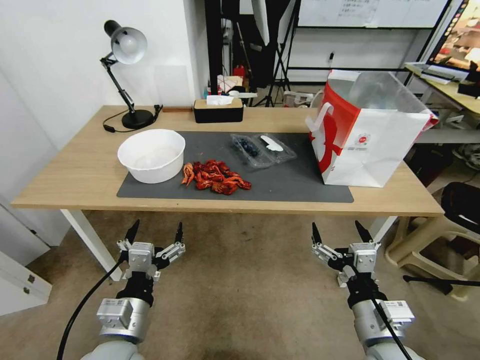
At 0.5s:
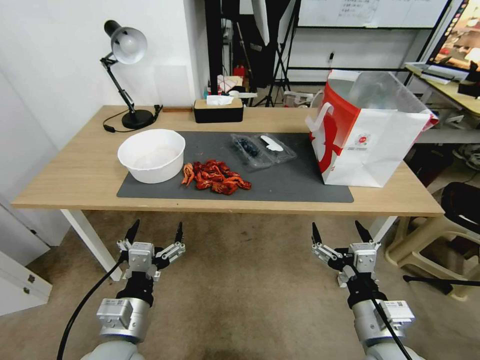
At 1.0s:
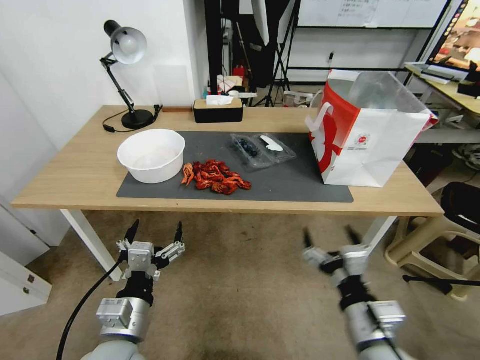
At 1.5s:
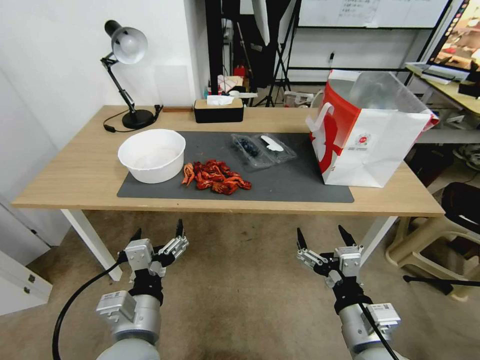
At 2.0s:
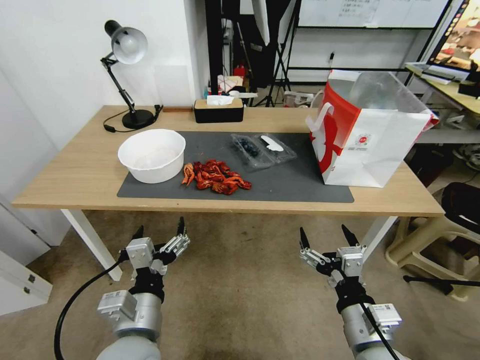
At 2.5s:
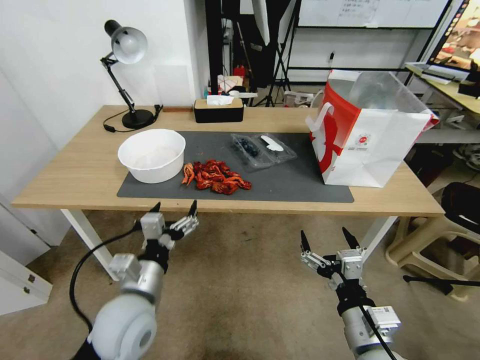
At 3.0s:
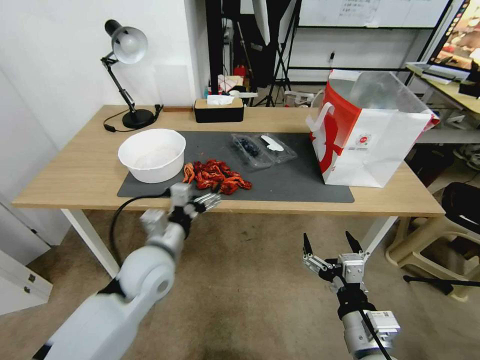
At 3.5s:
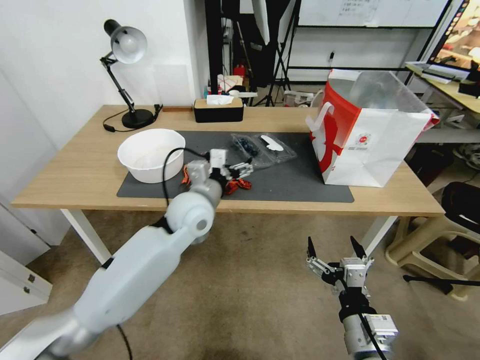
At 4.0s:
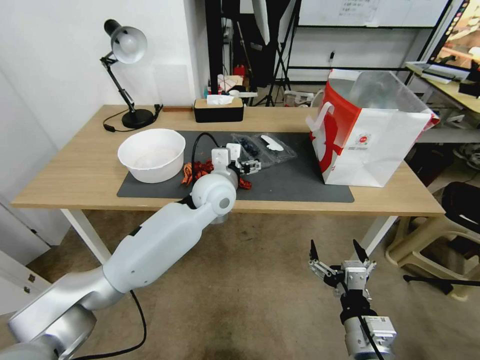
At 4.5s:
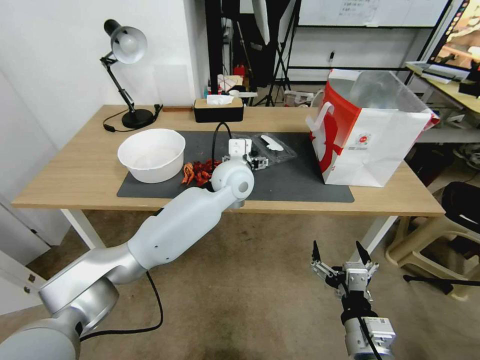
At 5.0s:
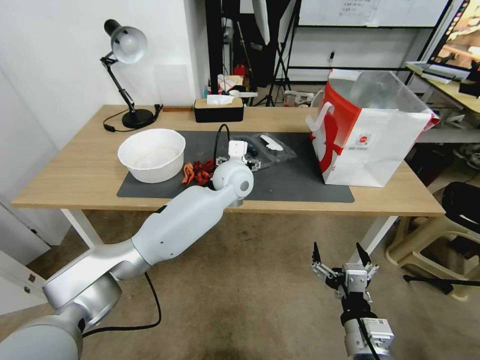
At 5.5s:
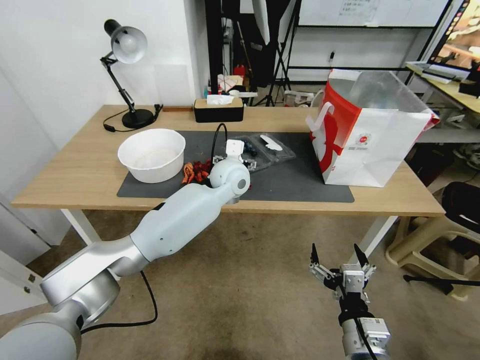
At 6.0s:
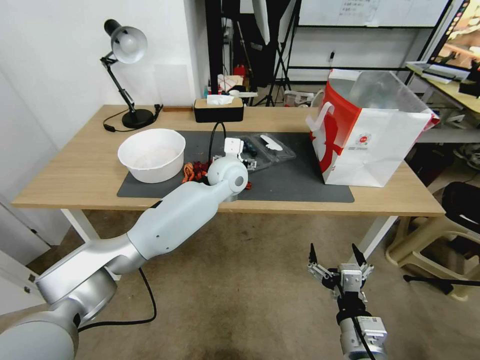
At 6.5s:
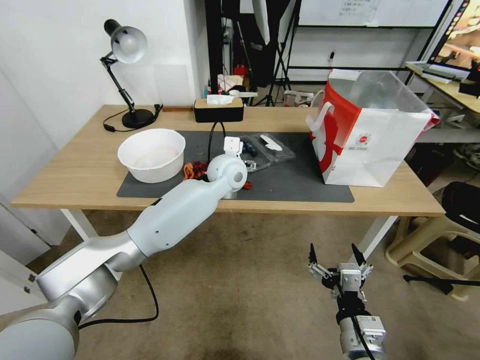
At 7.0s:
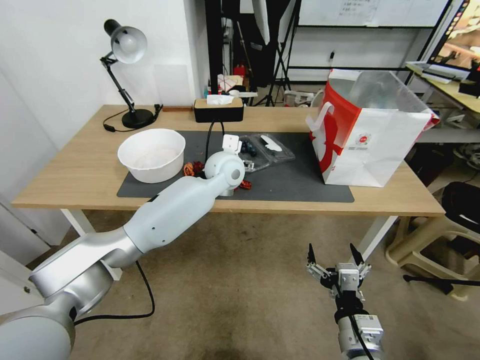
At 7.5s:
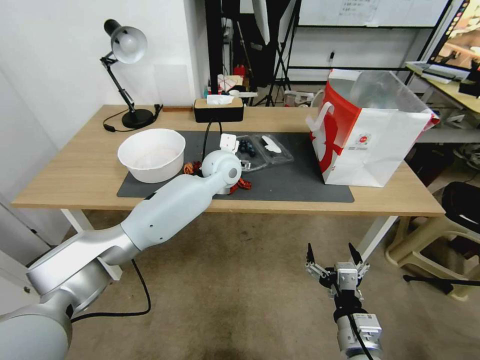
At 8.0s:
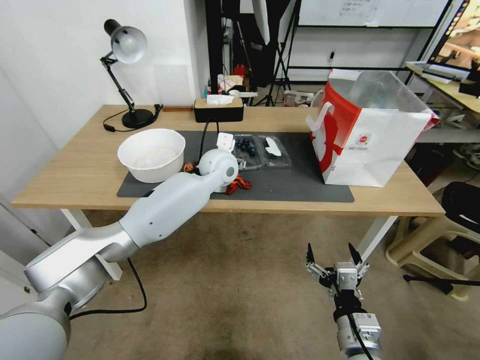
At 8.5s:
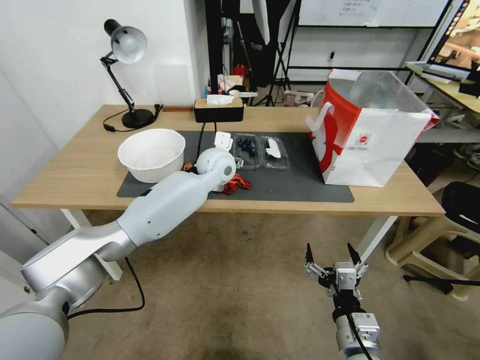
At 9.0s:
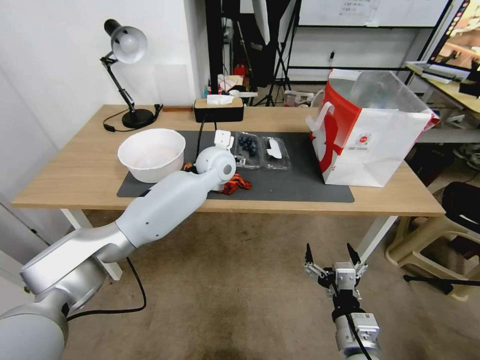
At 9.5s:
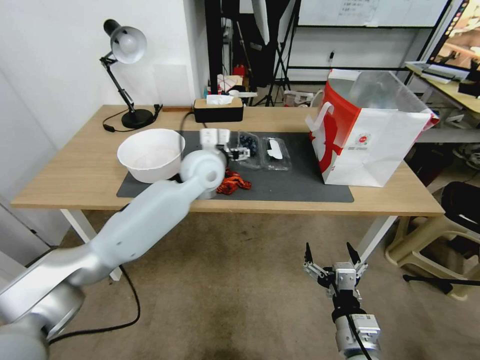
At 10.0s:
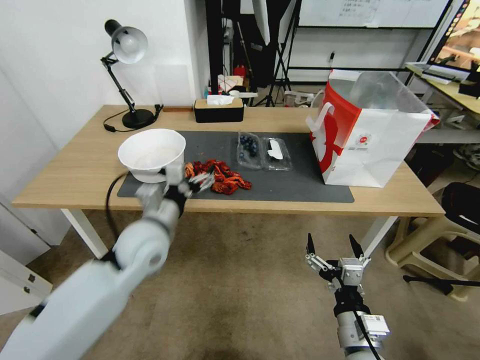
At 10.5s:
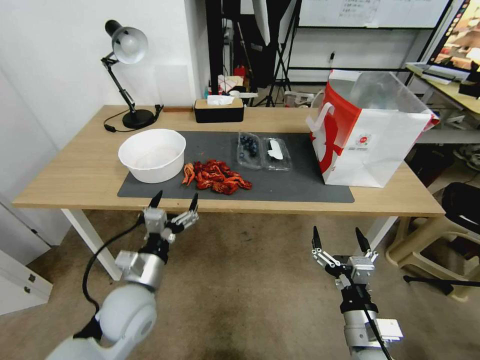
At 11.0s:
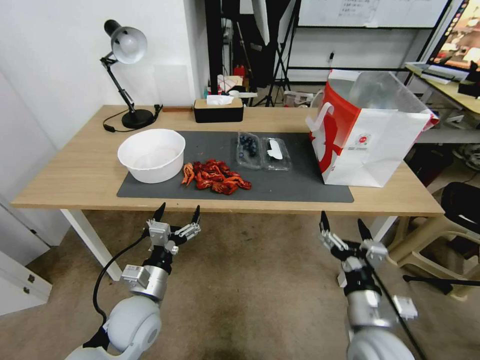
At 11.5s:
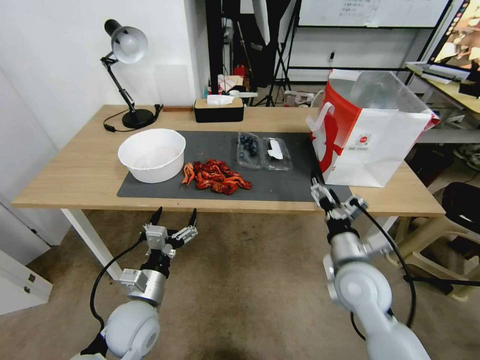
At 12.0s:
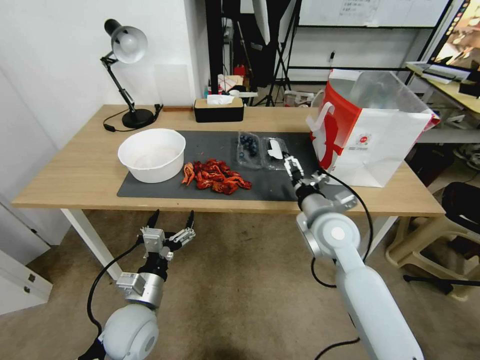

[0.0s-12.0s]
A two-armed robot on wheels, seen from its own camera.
Task of the whole recording: Close the takeout container lid, then place the container into the takeout bag.
2.0s to 4.0s: The left gripper goes about 30 cm forward.
4.0s to 6.0s: The left gripper travels forward by roughly 5 cm.
6.0s to 8.0s: The grippers make only small movements.
8.0s to 10.0s: The left gripper moves backward and to the left, some 25 cm.
10.0s to 12.0s: The right gripper shifts roughly 25 cm forward and upward, while the left gripper shifts some 15 cm downward and backward.

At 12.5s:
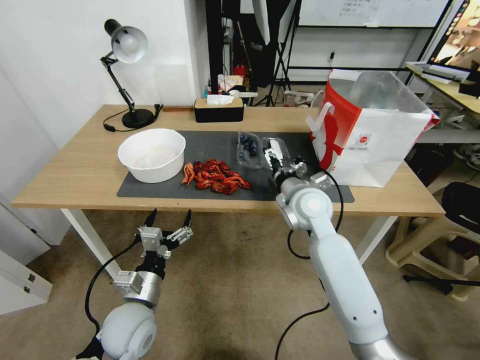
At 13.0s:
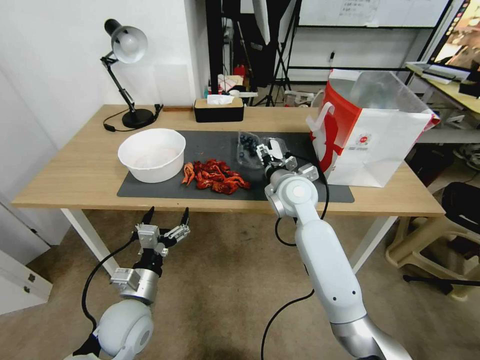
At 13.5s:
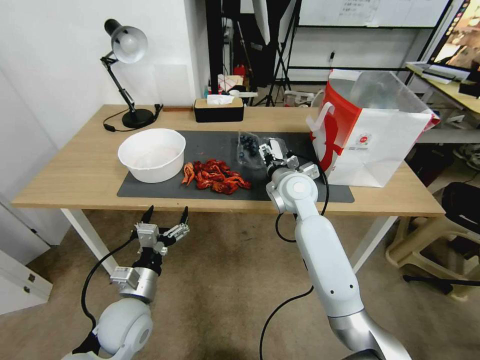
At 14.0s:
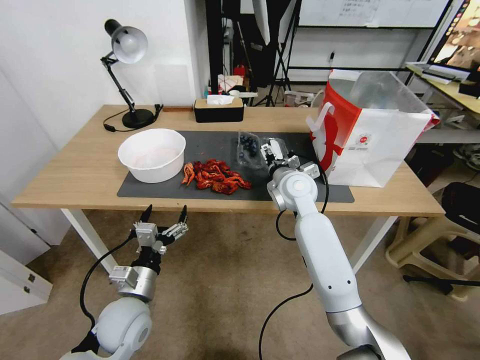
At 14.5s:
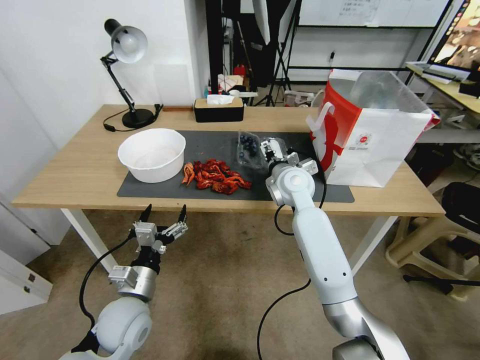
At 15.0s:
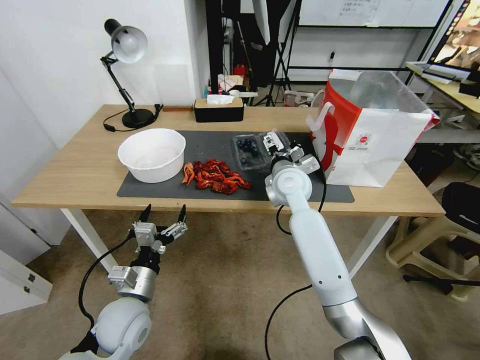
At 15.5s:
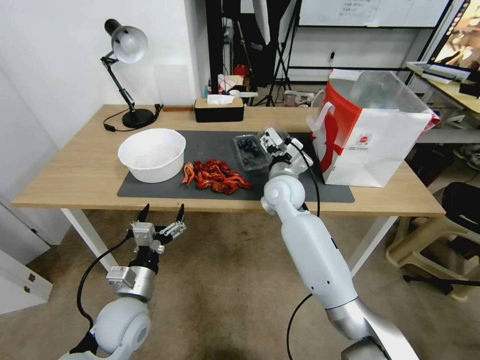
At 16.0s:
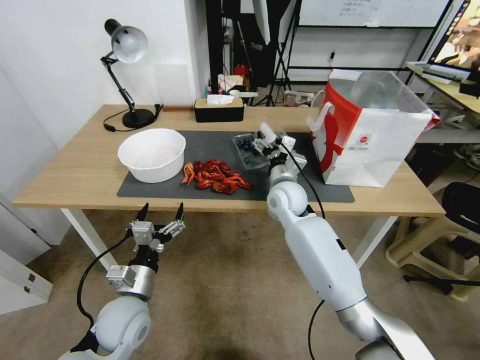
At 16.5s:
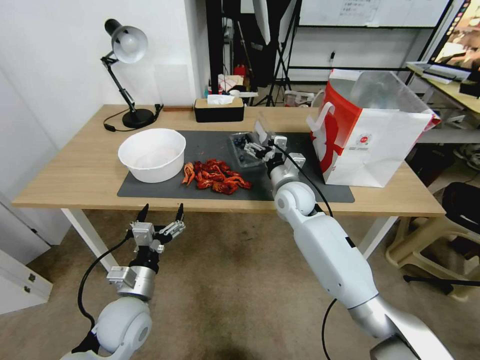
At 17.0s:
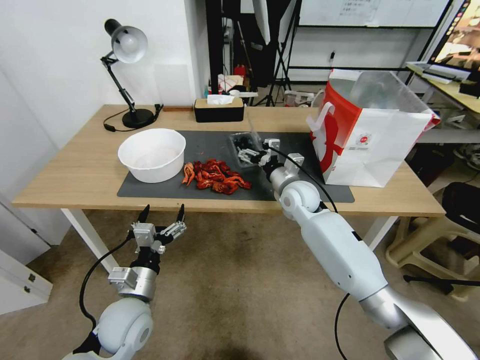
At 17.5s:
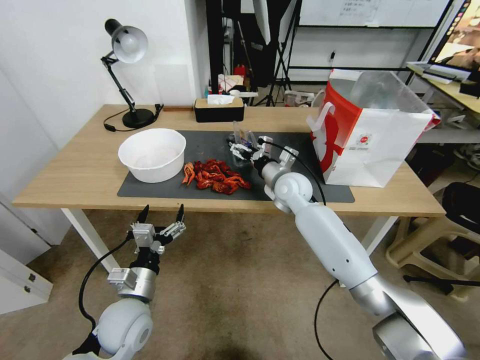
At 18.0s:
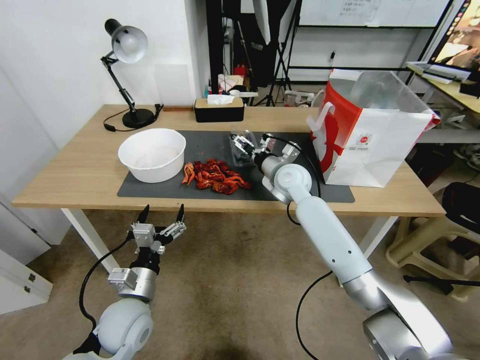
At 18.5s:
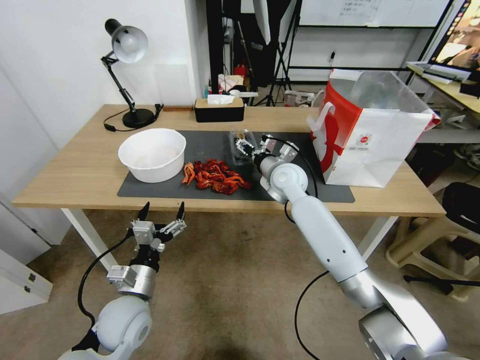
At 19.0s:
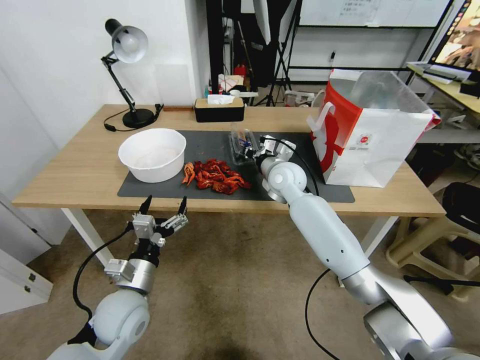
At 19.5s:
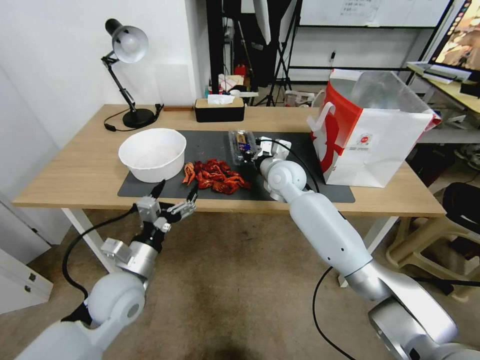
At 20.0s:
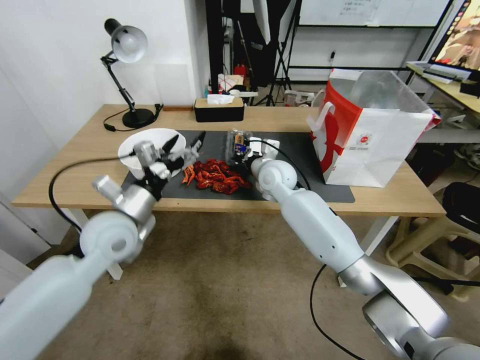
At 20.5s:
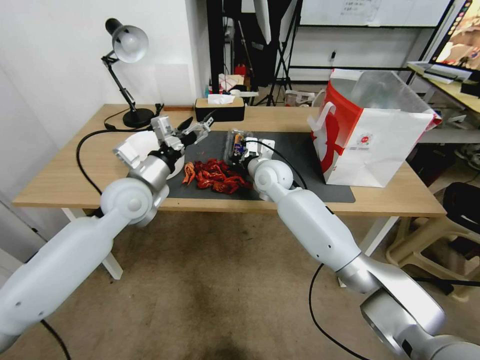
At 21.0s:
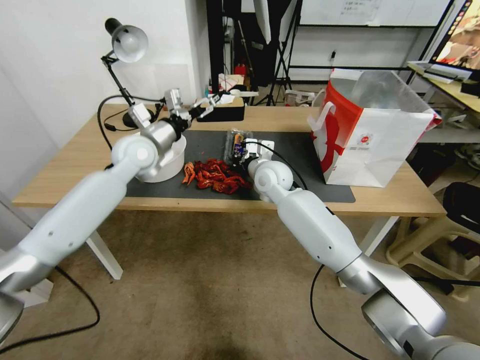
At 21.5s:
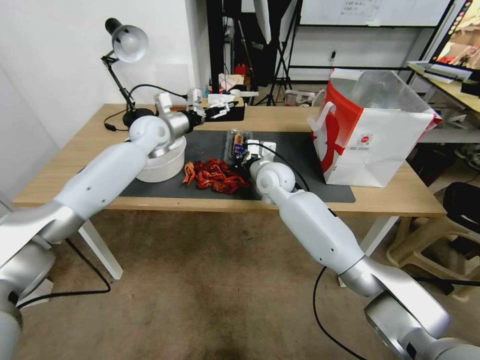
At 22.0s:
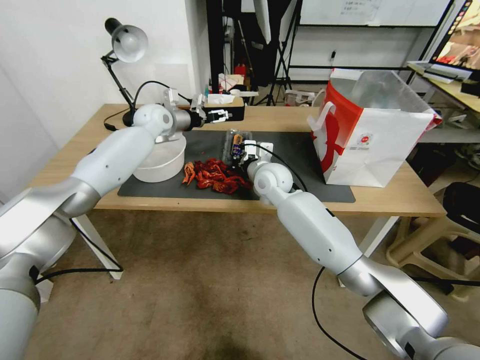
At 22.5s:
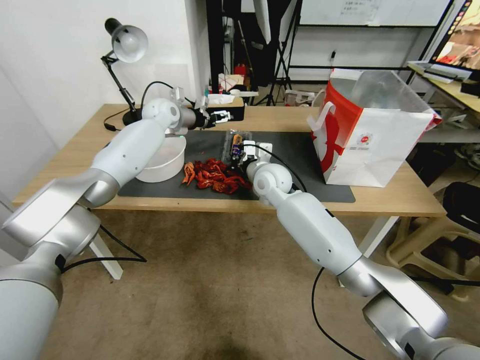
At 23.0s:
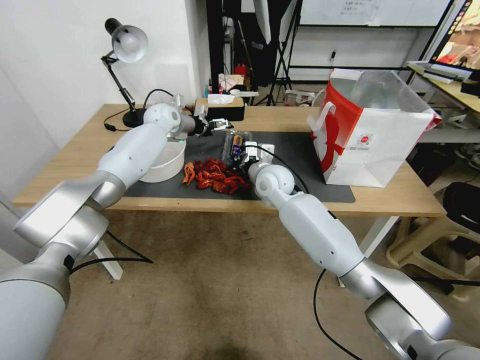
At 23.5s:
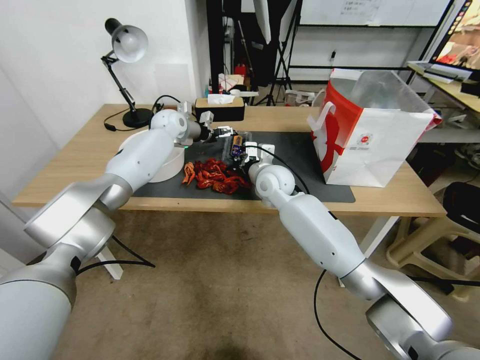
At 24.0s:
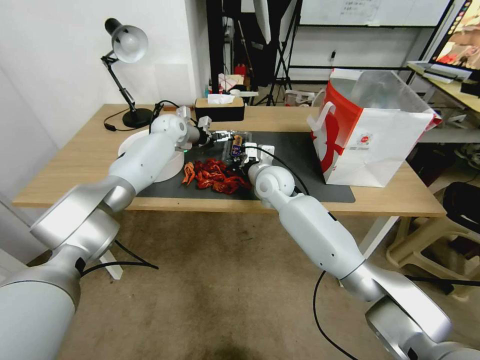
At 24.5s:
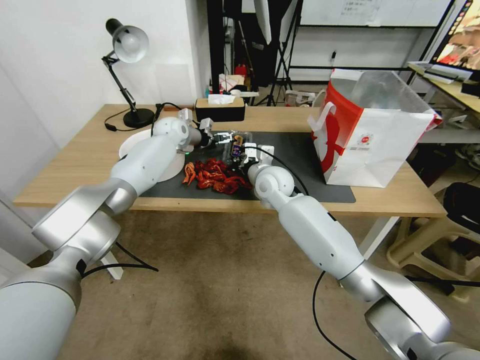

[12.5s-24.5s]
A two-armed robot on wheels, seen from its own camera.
Task of the whole recording: Close the takeout container lid, then place the container into the takeout bag.
12.5s to 14.5s: The right gripper is displaced forward by roughly 5 cm.
16.5s to 18.5s: The right gripper shifts by some 5 cm.
18.5s to 20.5s: The left gripper is displaced upward and forward by about 25 cm. The right gripper closes.
20.5s to 22.5s: The left gripper is displaced forward by about 25 cm.
22.5s to 24.5s: The left gripper travels downward by roughly 5 cm.

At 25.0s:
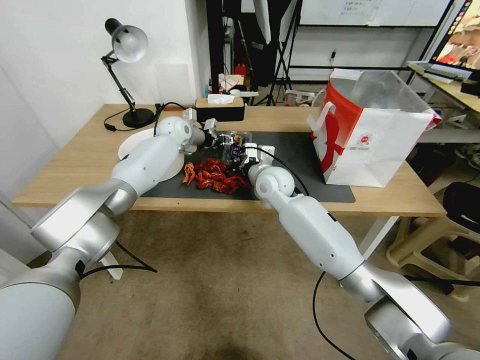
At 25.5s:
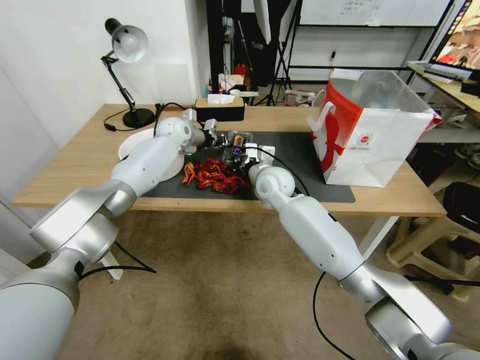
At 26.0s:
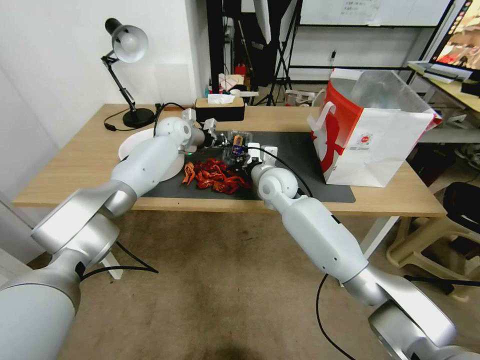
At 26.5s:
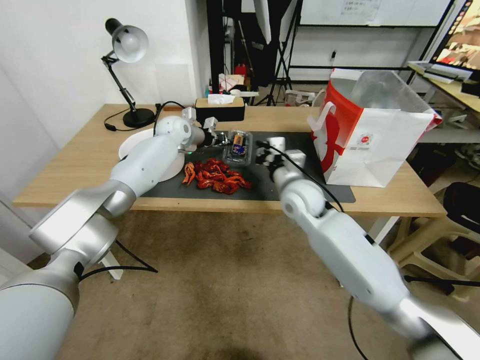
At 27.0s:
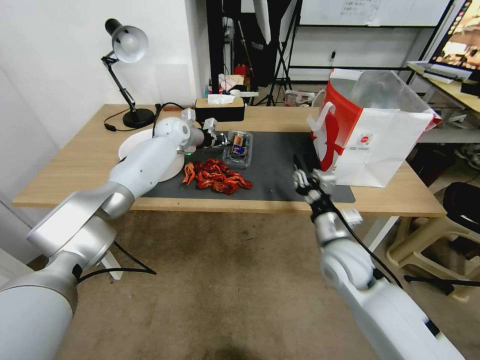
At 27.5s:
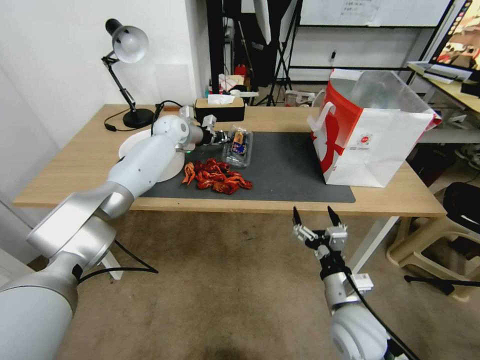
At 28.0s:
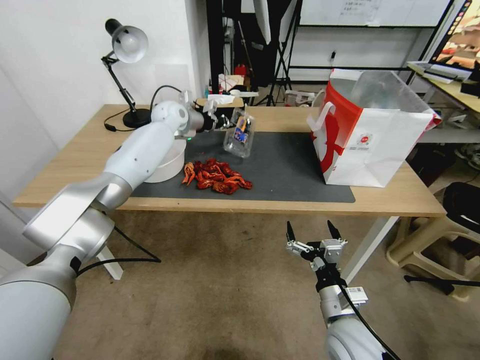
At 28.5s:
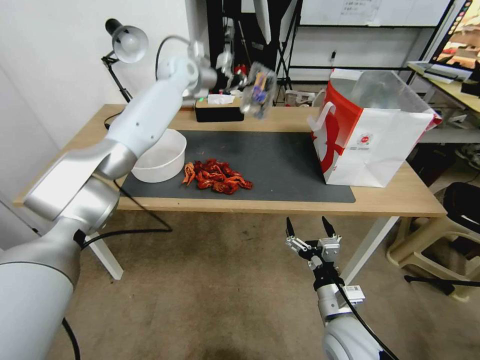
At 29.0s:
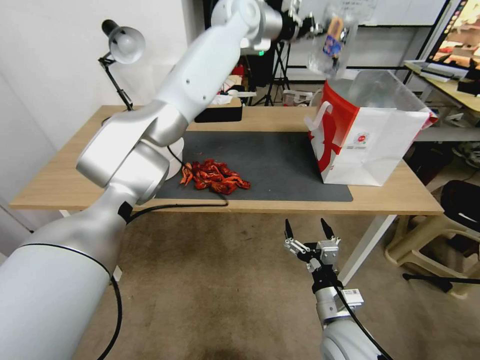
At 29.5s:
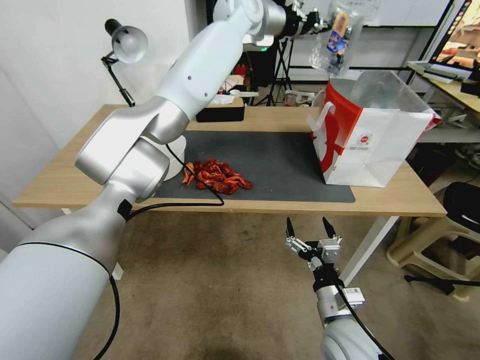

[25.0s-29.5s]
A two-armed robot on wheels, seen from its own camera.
Task of the whole recording: Close the takeout container lid, then place the container into the takeout bag.
25.0s to 27.0s: The left gripper closes, while the right gripper shifts approximately 25 cm backward and to the right.
27.0s to 29.5s: The left gripper goes approximately 35 cm upward and to the right. Meanwhile the right gripper goes roughly 15 cm backward and downward, and opens.
